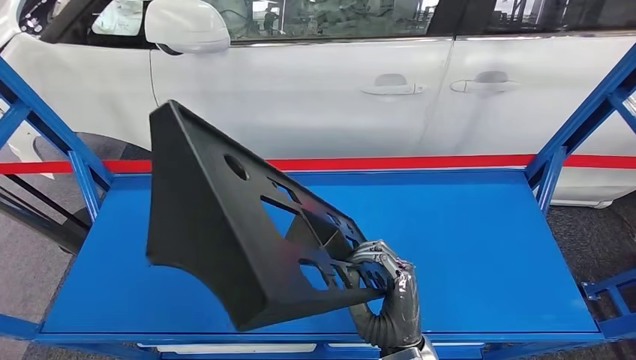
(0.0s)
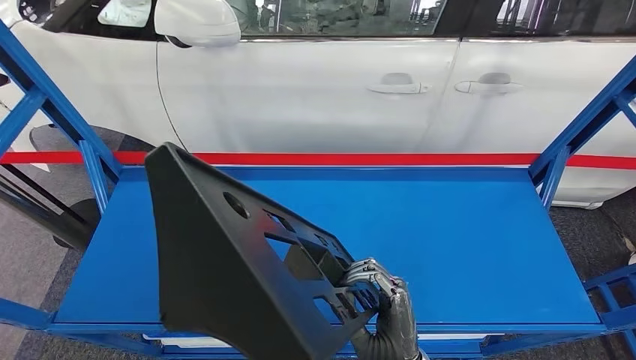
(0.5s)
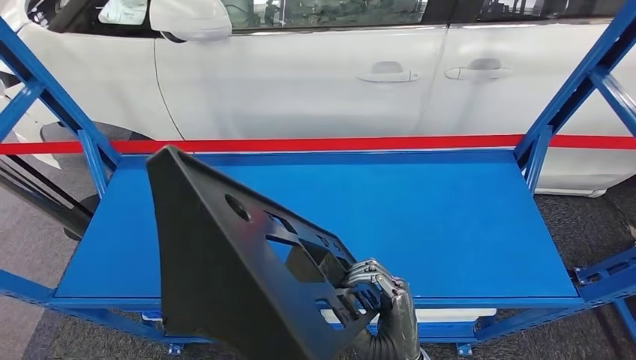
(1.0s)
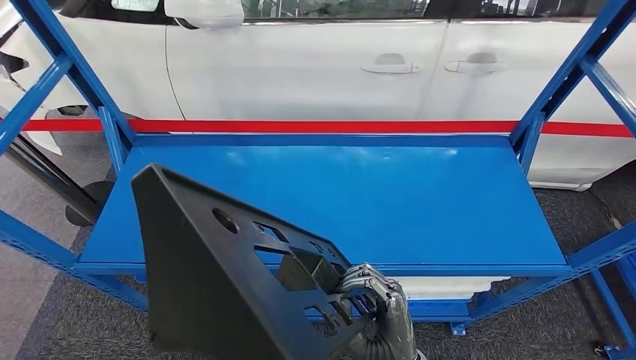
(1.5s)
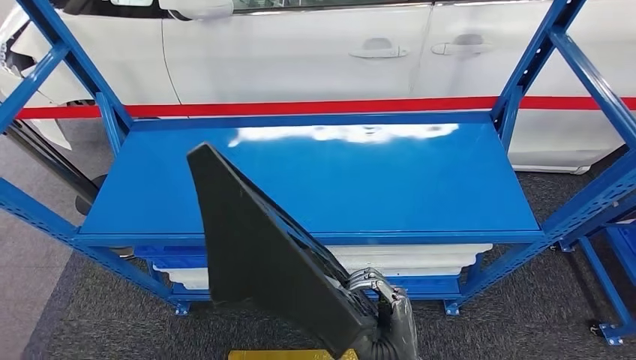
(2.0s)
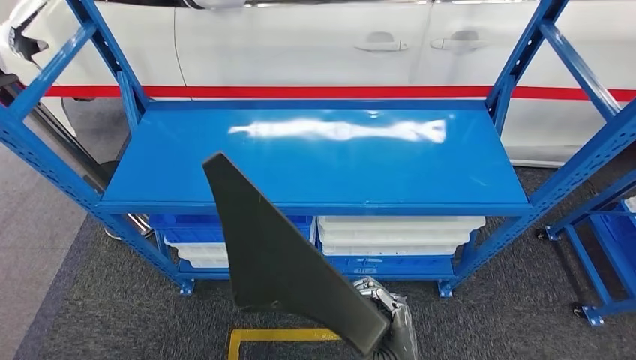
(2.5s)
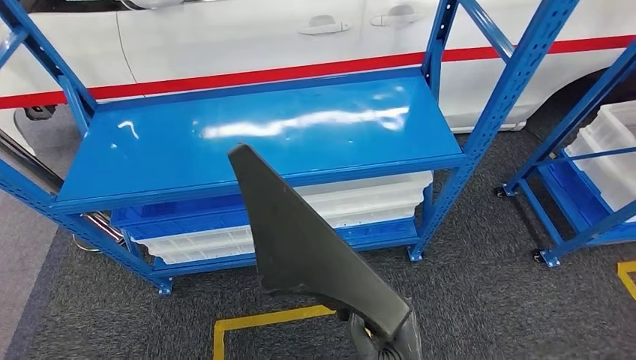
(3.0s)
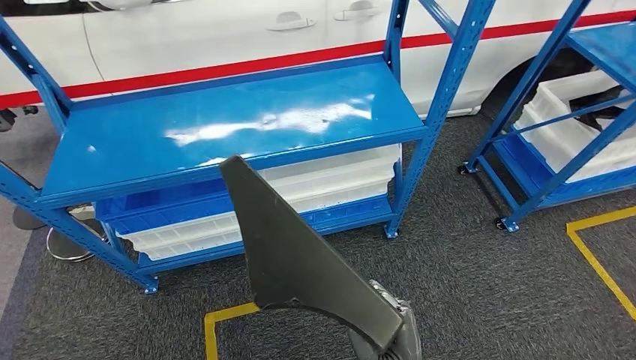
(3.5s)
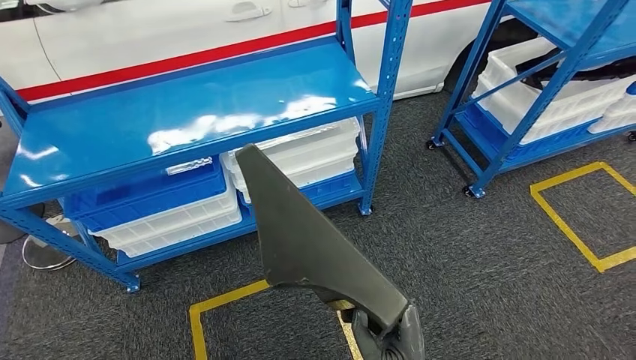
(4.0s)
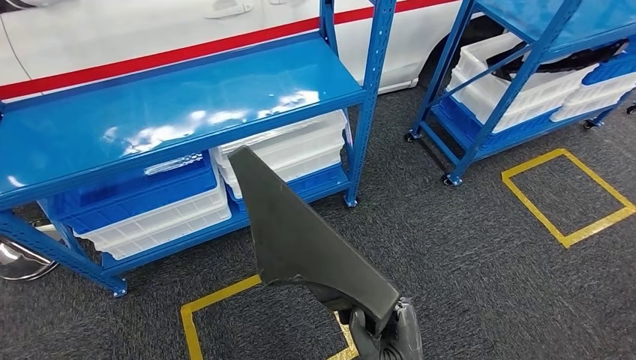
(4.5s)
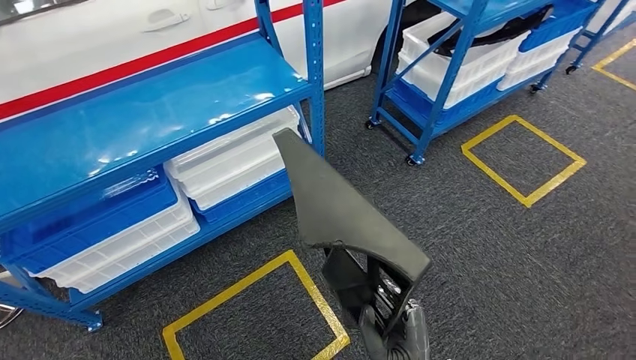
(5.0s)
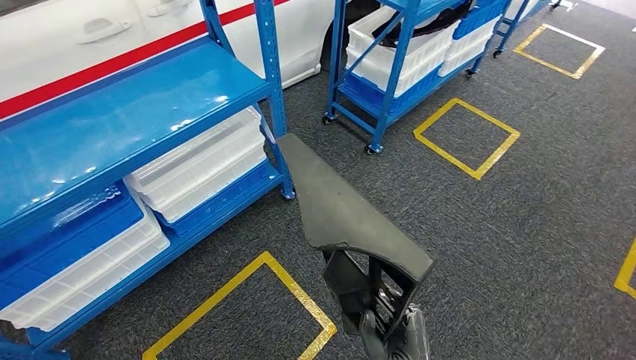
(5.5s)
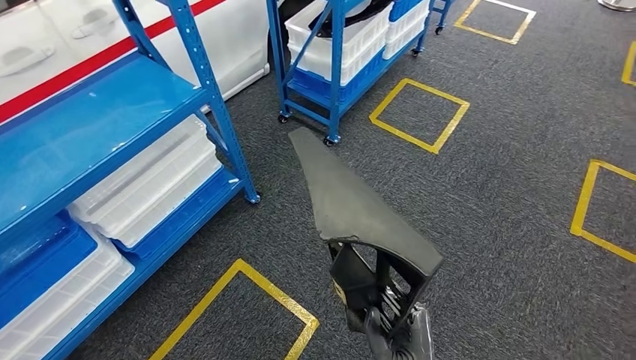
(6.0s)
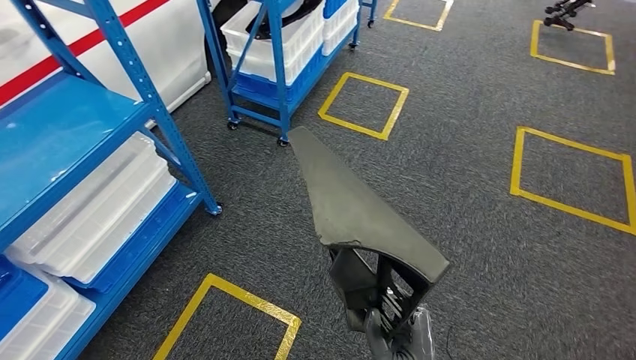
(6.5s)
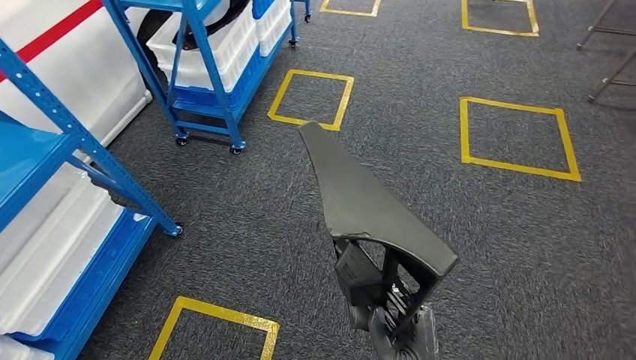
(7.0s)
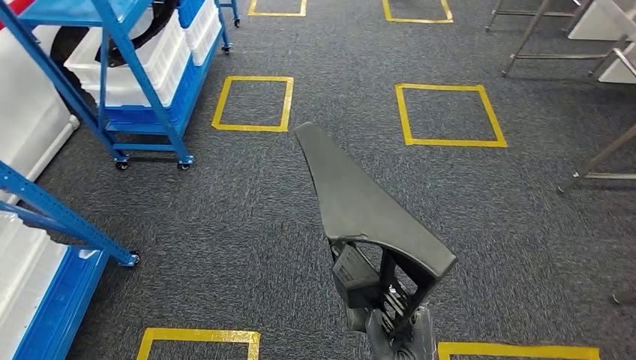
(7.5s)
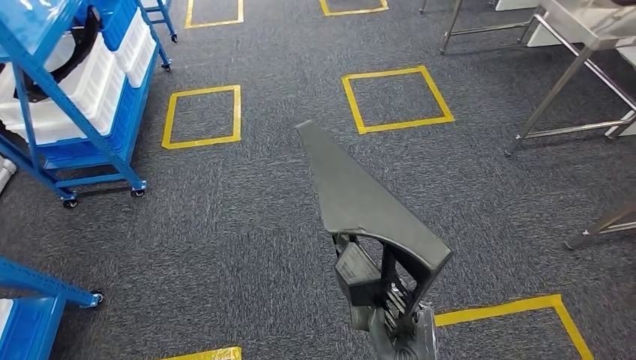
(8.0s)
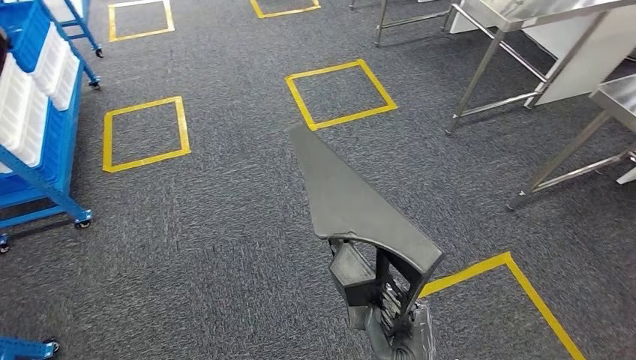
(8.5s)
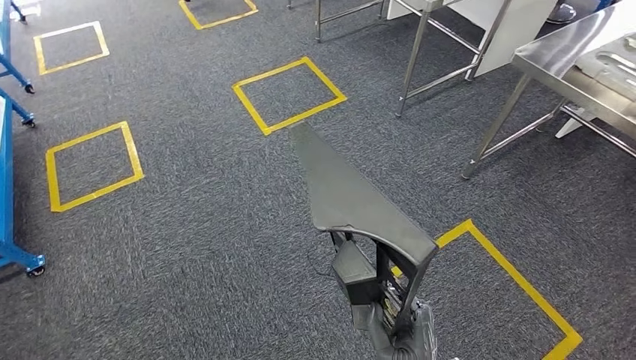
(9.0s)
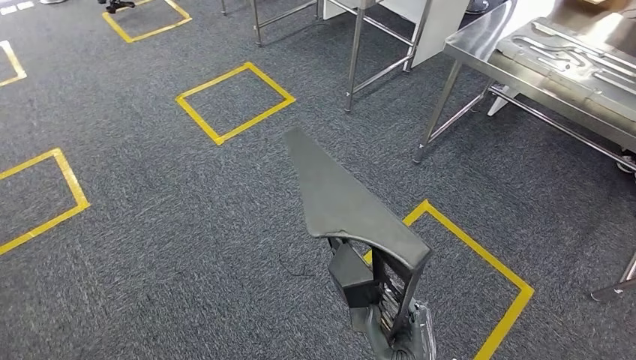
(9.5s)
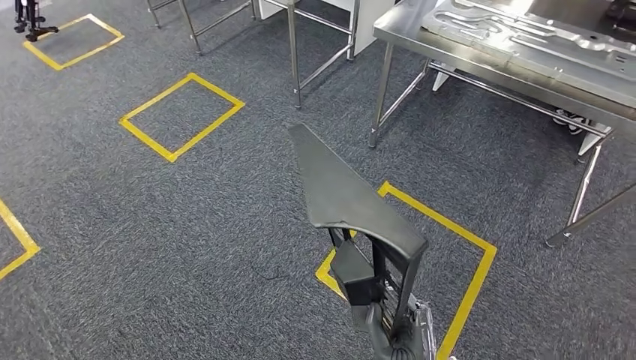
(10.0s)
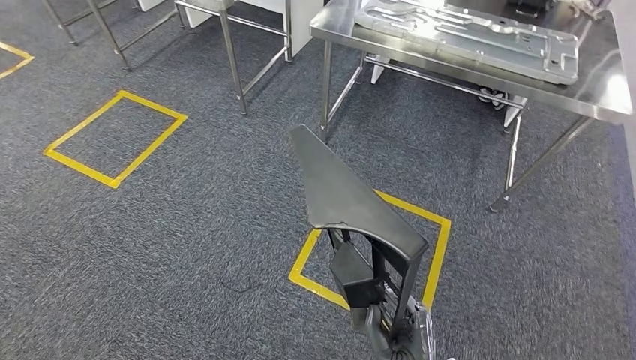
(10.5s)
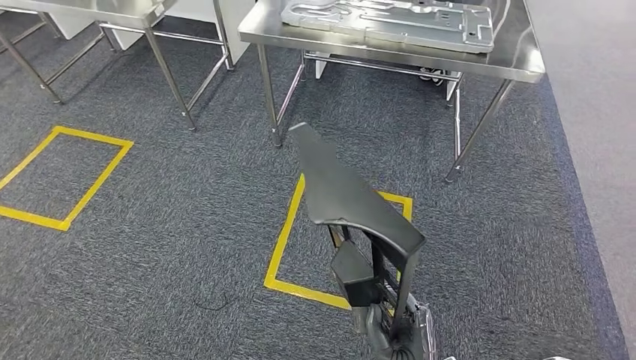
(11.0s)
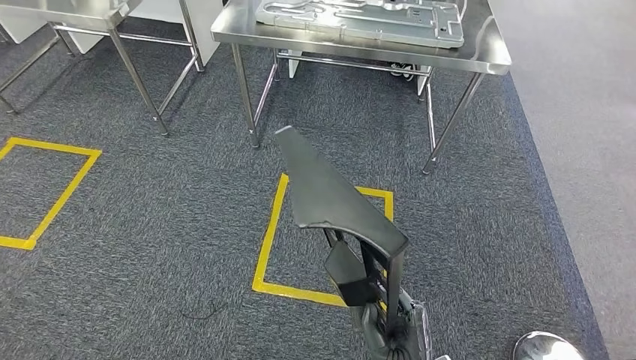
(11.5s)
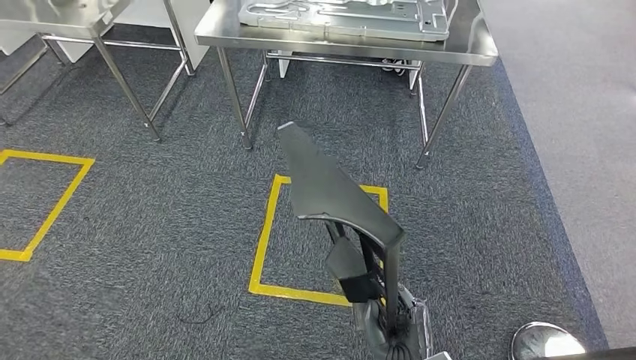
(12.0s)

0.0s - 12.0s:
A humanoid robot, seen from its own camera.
Step, 0.0s - 2.0s: Pick up the large material from the shelf.

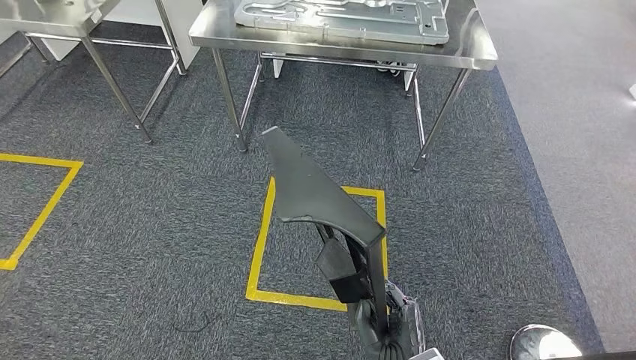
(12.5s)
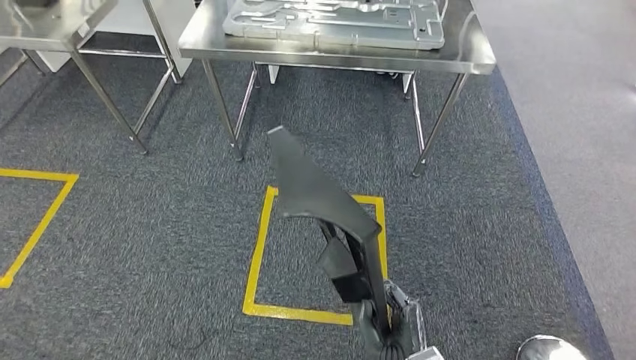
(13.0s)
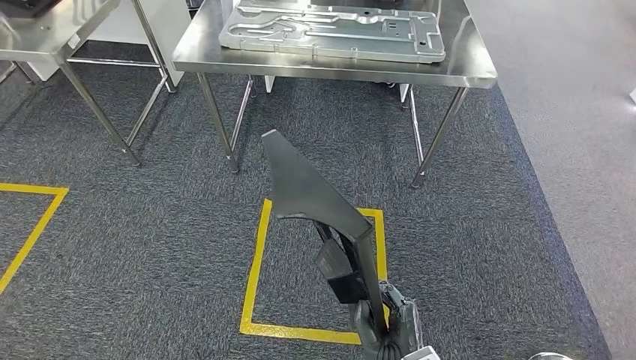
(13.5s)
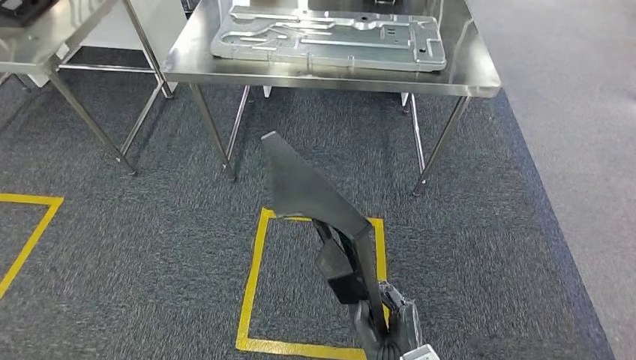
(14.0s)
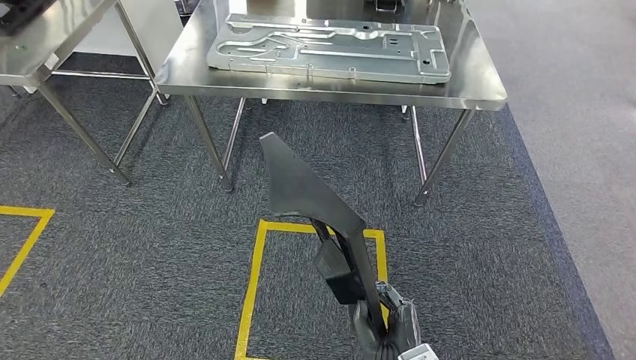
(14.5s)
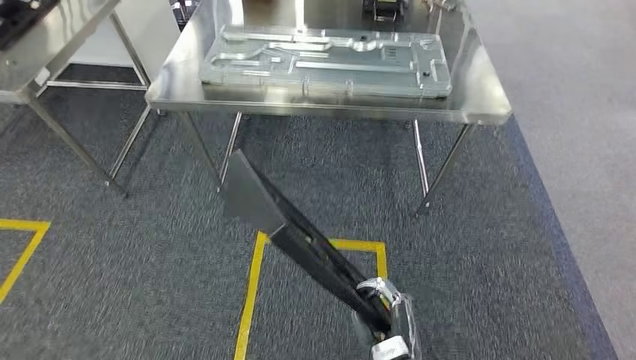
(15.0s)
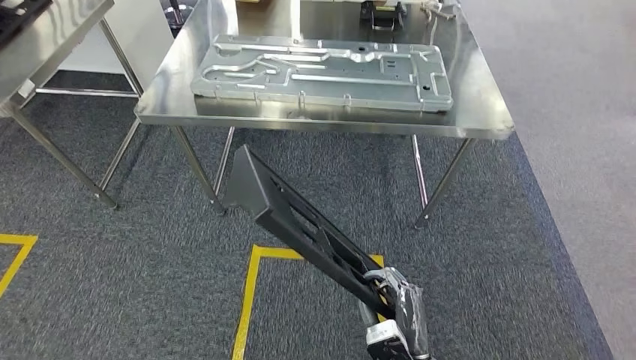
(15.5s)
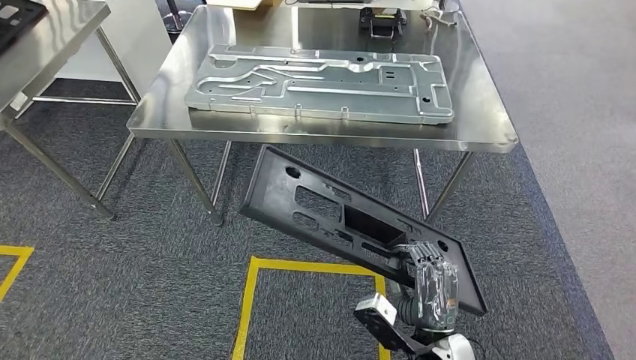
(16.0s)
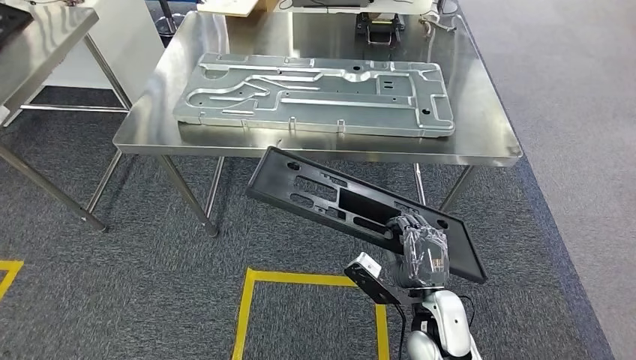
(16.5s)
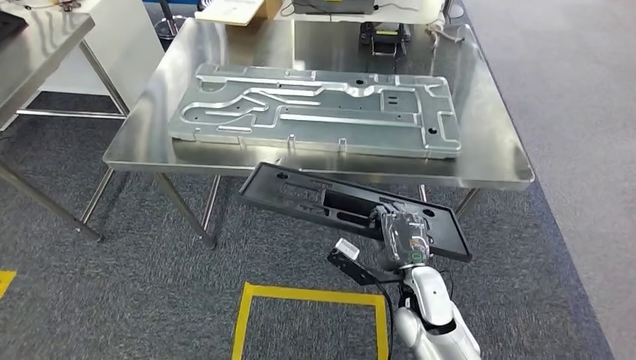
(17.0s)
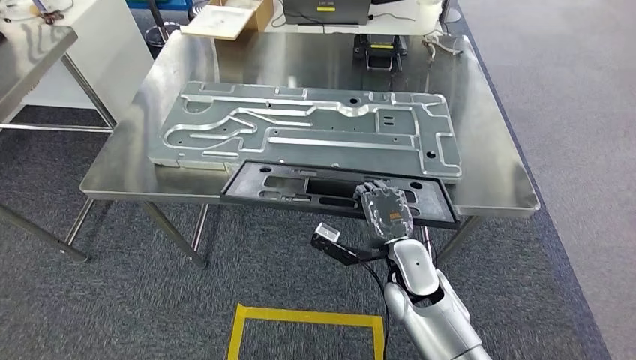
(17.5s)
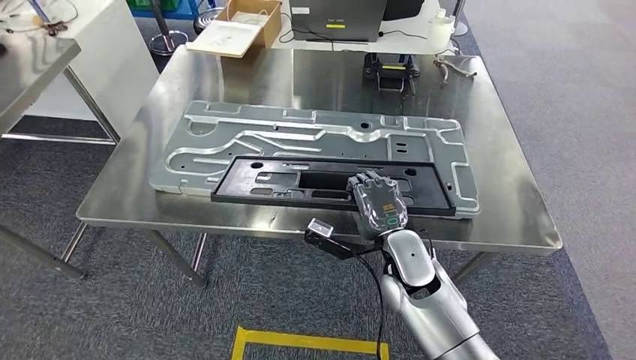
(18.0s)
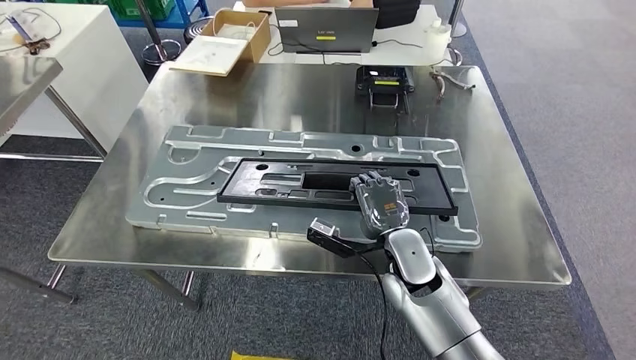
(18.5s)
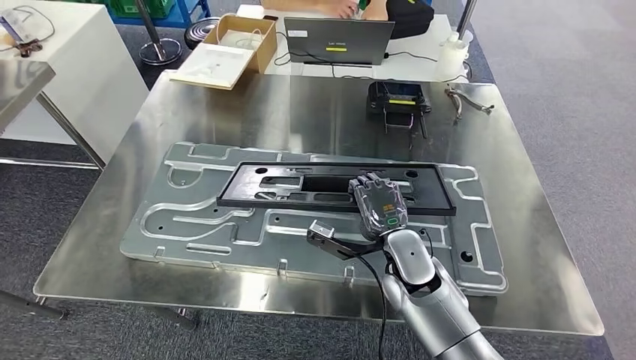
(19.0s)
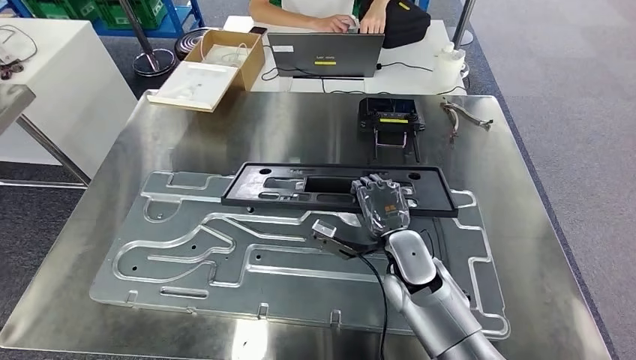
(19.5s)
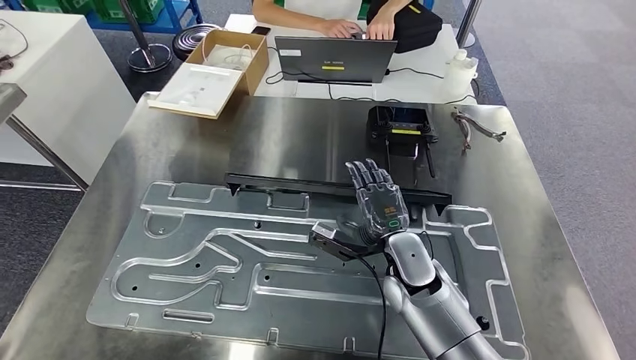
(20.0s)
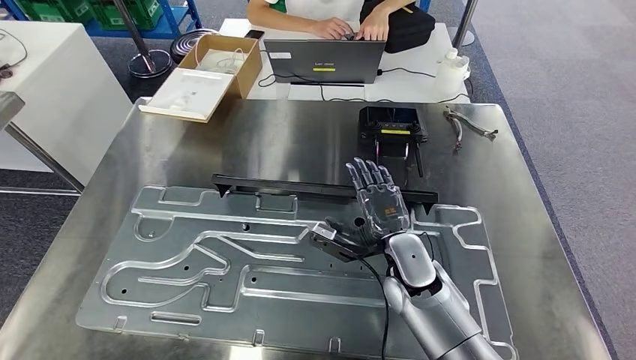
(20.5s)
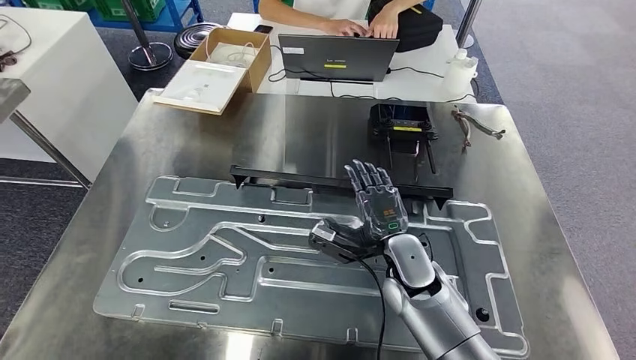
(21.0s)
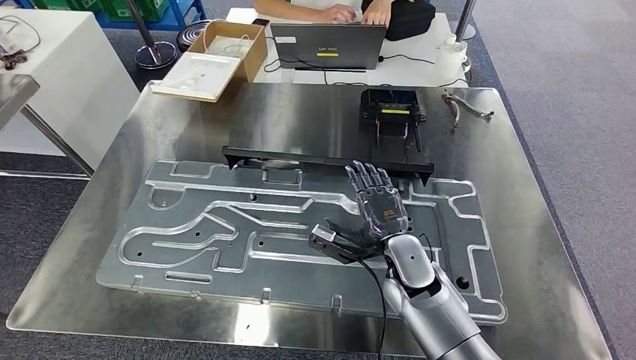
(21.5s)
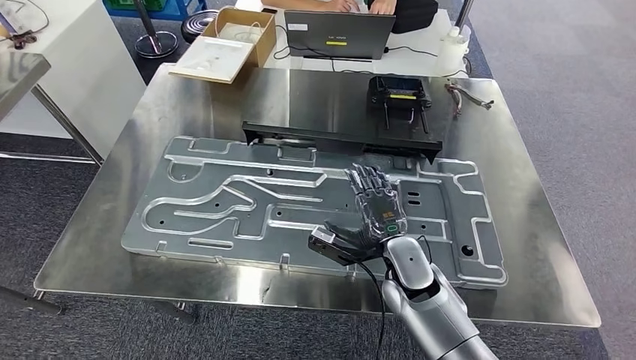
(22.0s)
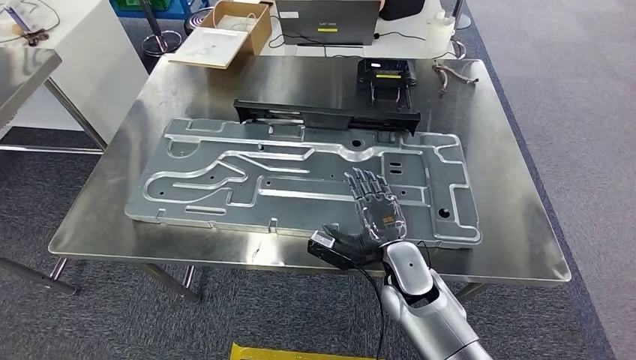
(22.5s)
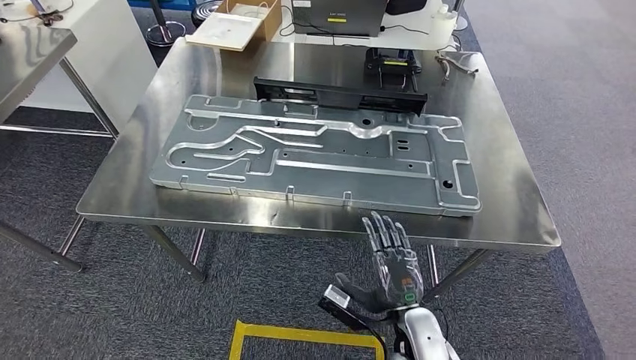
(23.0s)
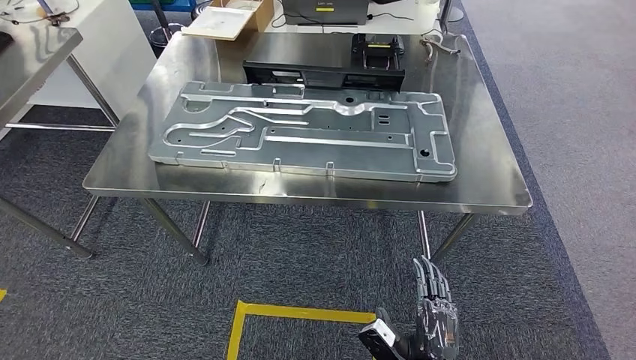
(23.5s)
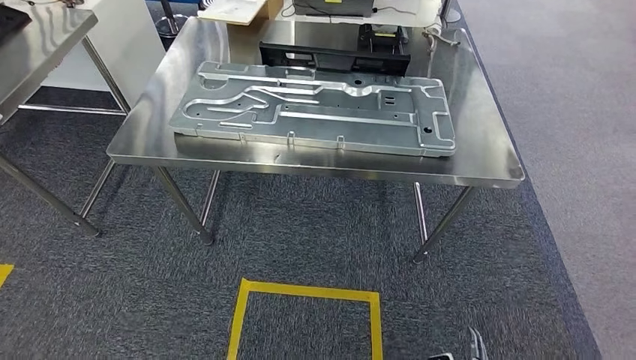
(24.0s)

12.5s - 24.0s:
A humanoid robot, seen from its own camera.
Step, 12.5s - 15.5s: Move the large material to the workbench.
Step, 16.0s - 24.0s: Insert the large material into the corresponding slot on the workbench.
